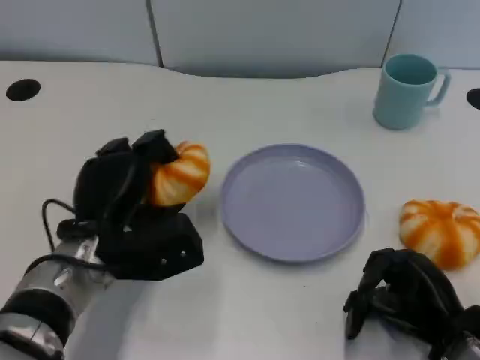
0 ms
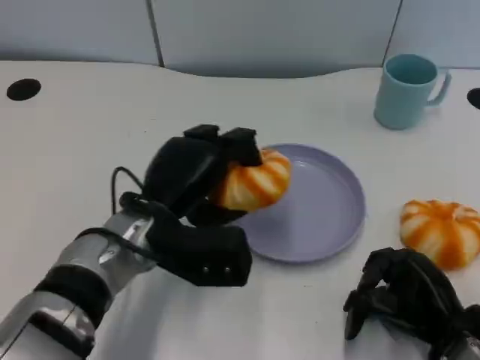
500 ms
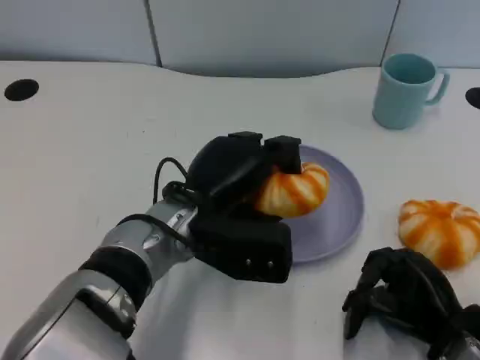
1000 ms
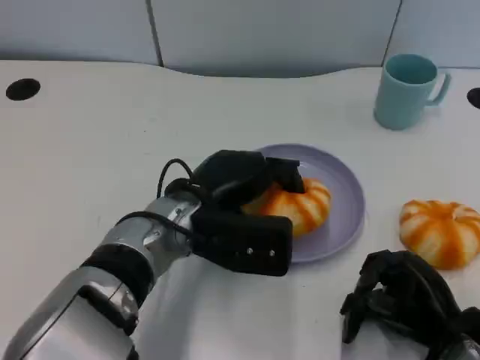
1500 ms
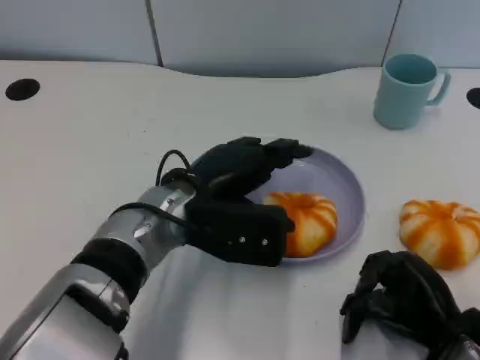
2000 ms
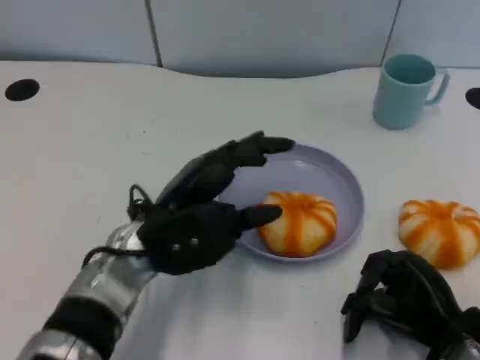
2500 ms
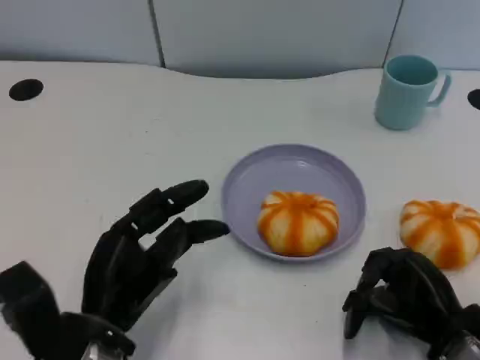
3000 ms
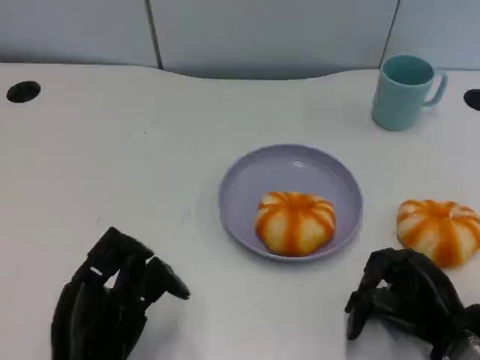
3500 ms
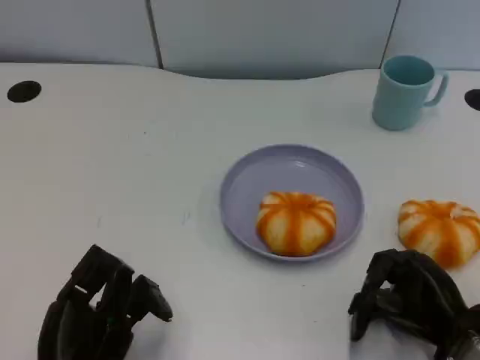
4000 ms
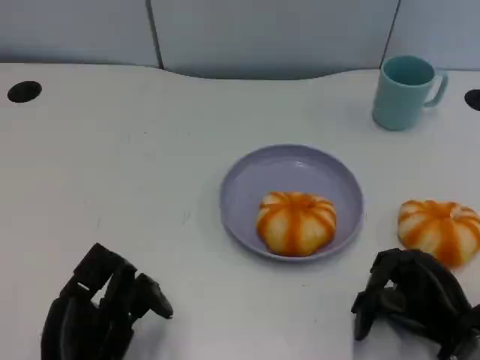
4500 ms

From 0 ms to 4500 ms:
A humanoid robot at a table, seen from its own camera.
Task of the whole recording: Grasp the bread from the table and place it into the plate.
From 0 ms to 2000 ms: The left hand moves to the right, roughly 10 cm.
From 2000 ms to 4500 ms: The left hand is displaced backward, to the left and downward by some 20 cm.

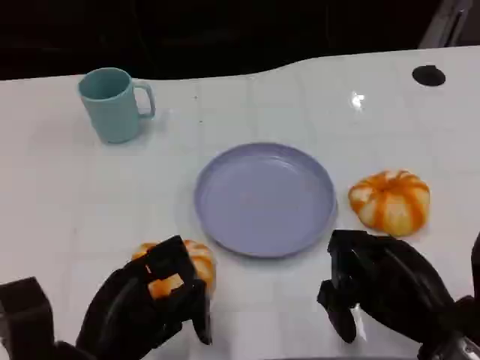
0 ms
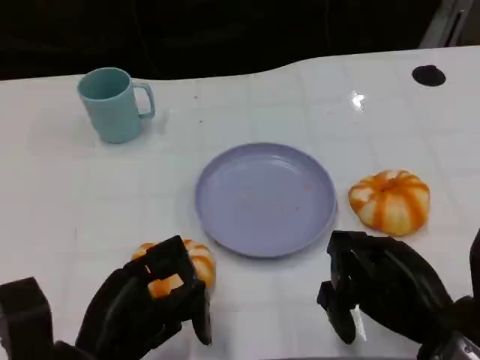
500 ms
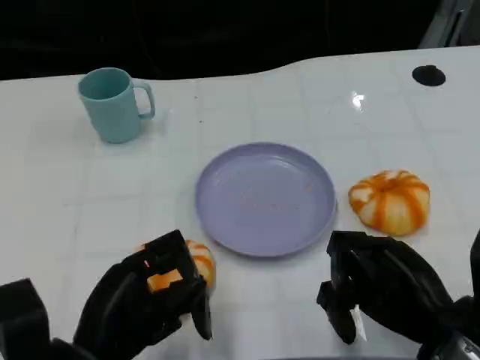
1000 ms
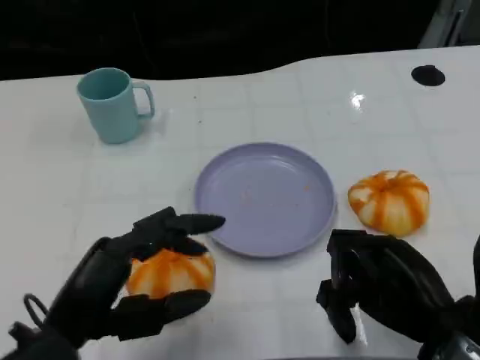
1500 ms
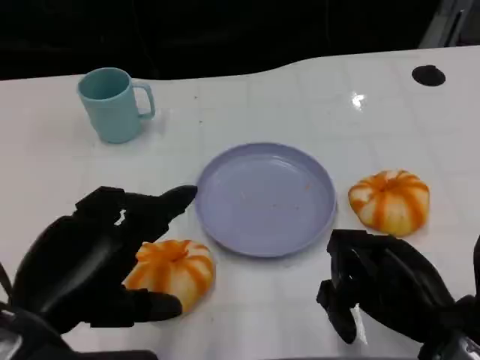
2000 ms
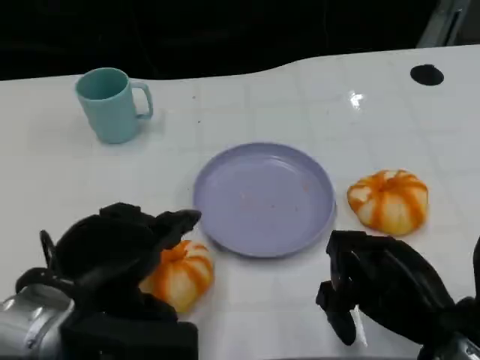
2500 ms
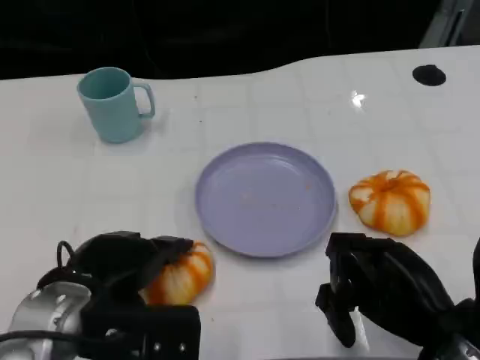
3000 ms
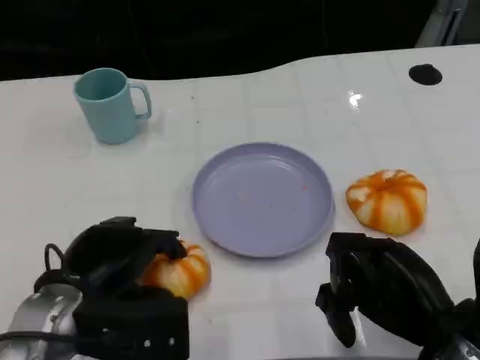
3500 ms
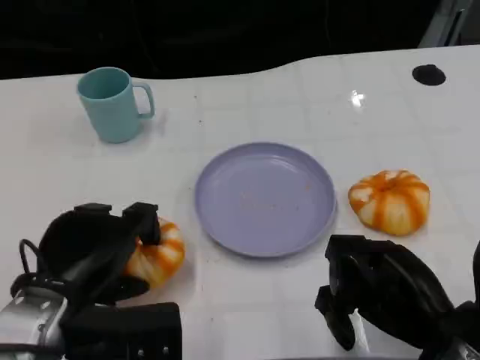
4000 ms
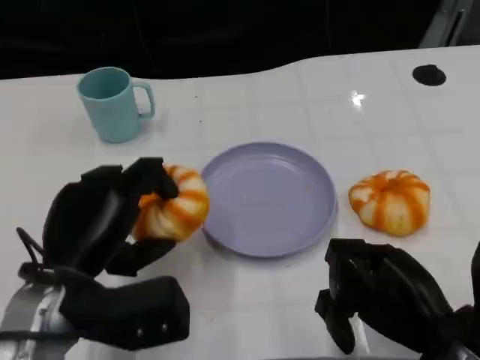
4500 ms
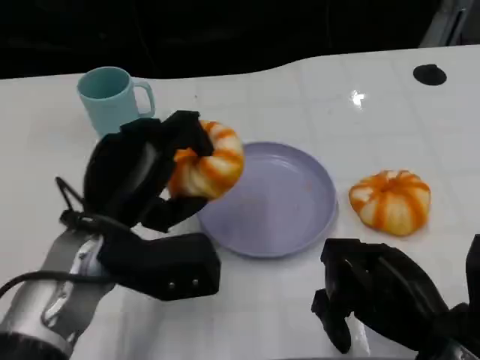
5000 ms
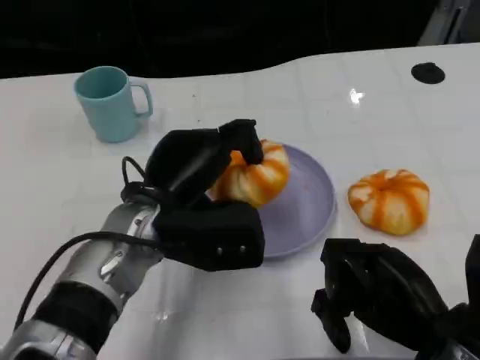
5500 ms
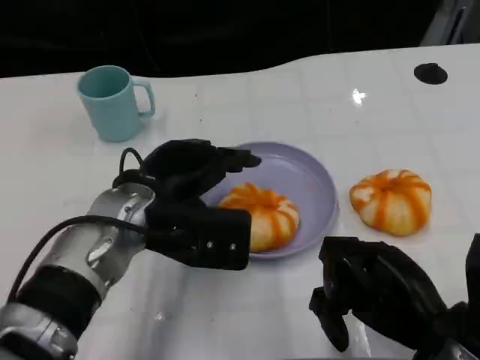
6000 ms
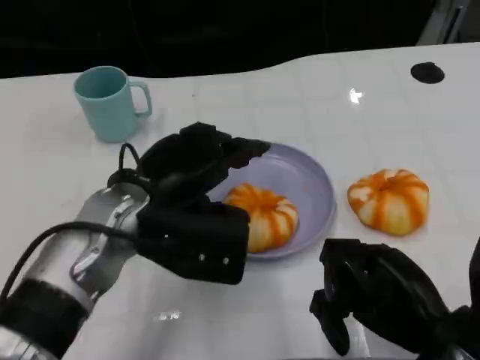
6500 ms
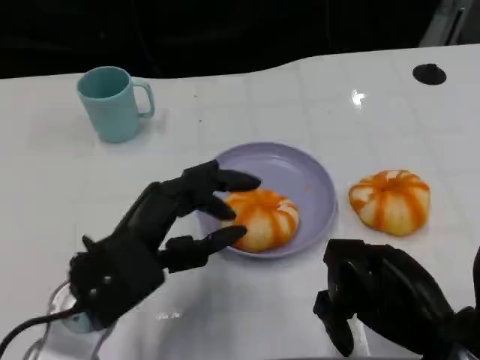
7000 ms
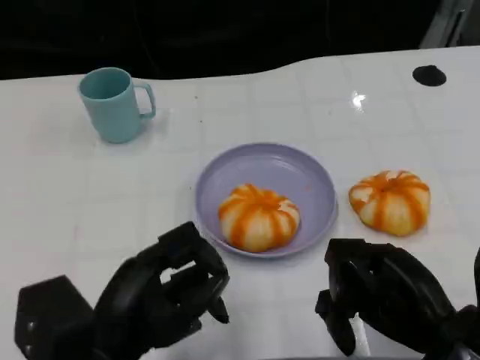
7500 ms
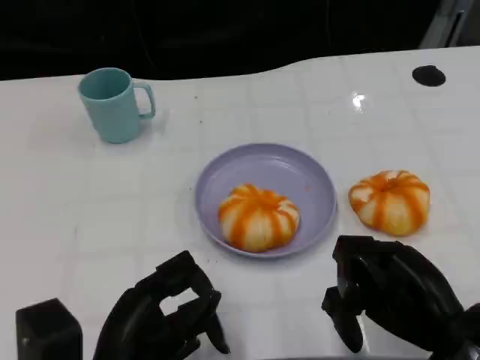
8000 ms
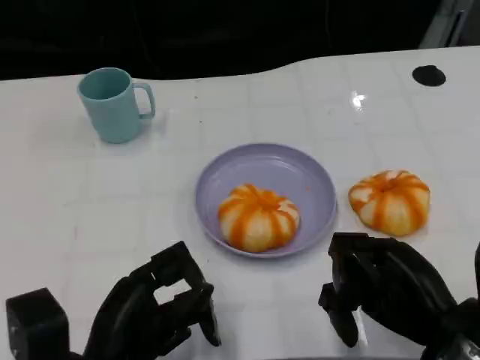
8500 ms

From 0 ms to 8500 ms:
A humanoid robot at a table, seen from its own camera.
Task of the whole recording: Grasp the bread from the table and place it into the plate.
From 0 ms to 2000 ms: The left hand is displaced upward by some 10 cm.
From 2000 ms to 4000 ms: The left hand is displaced downward and forward by approximately 10 cm.
From 4000 ms to 6500 ms: The left hand travels to the right and forward by roughly 10 cm.
From 6500 ms to 8500 ms: The left hand moves backward and downward, approximately 15 cm.

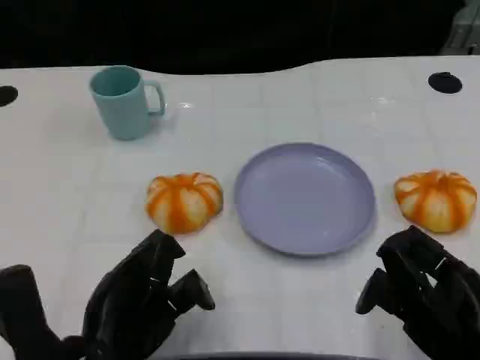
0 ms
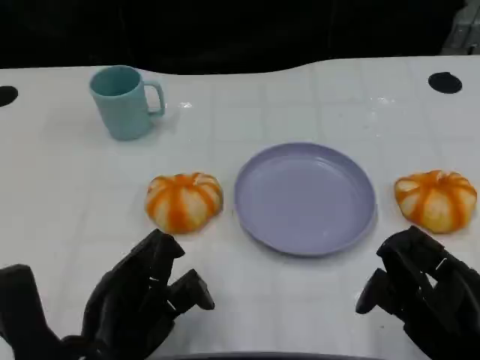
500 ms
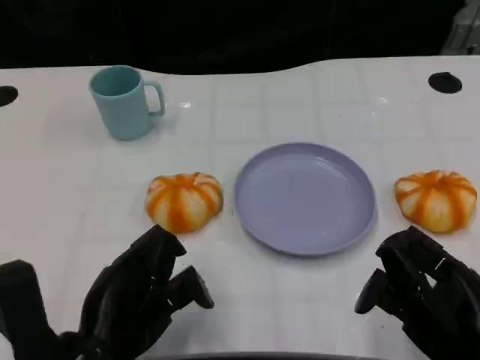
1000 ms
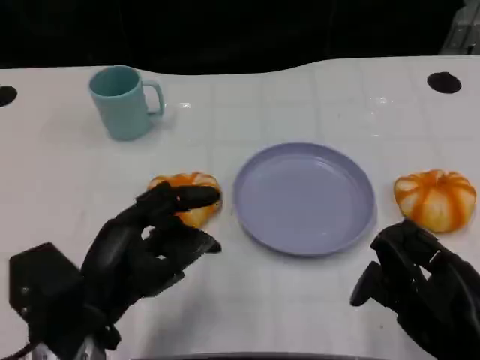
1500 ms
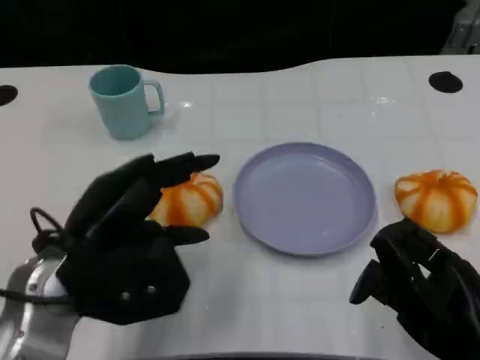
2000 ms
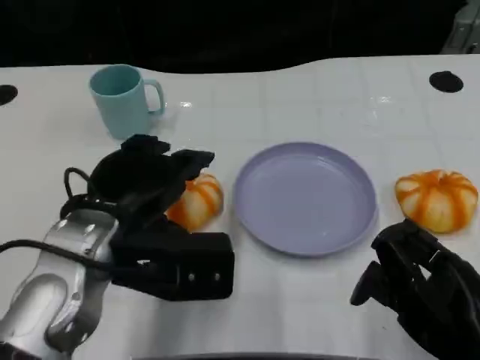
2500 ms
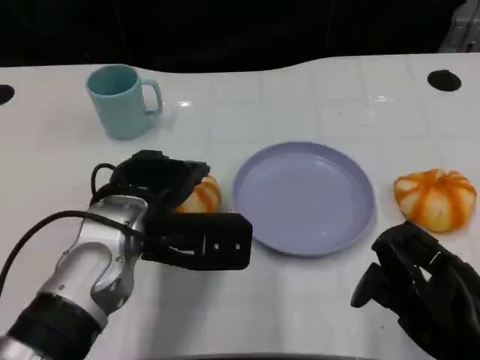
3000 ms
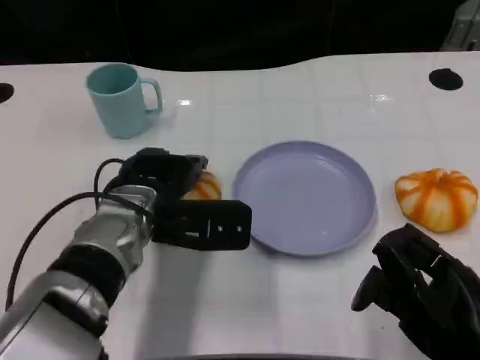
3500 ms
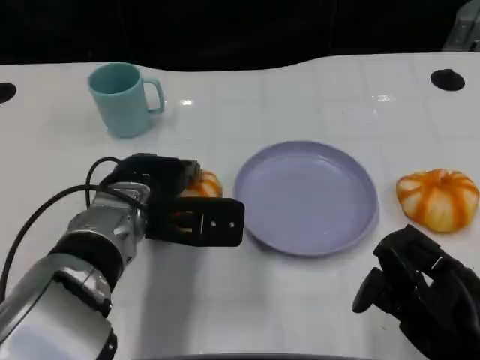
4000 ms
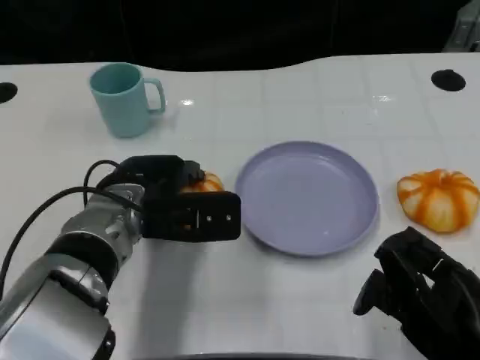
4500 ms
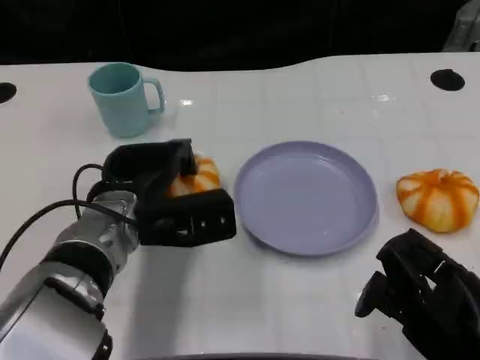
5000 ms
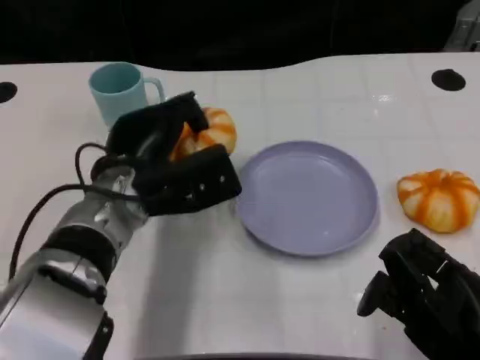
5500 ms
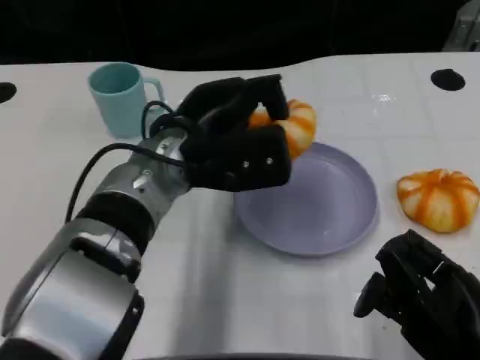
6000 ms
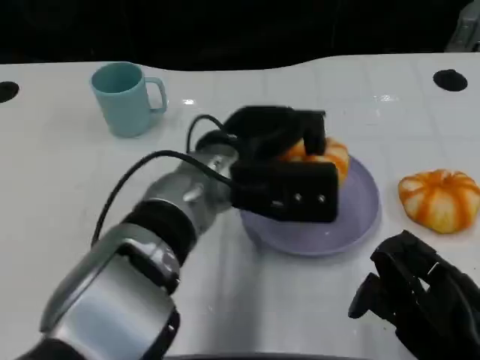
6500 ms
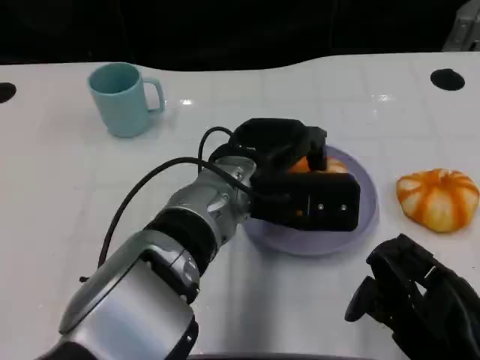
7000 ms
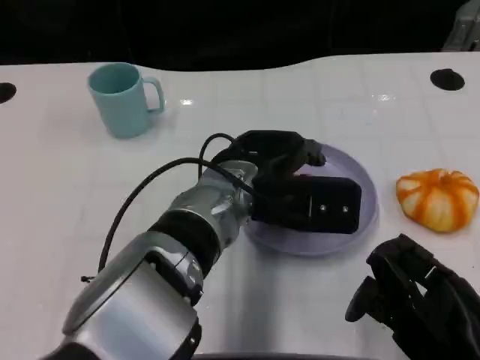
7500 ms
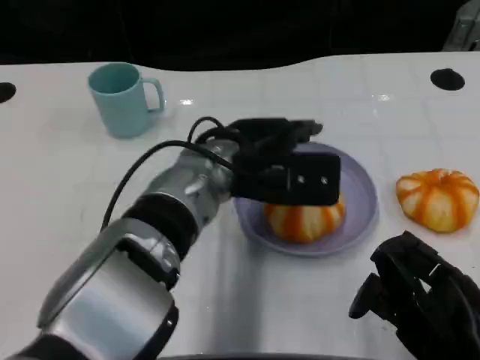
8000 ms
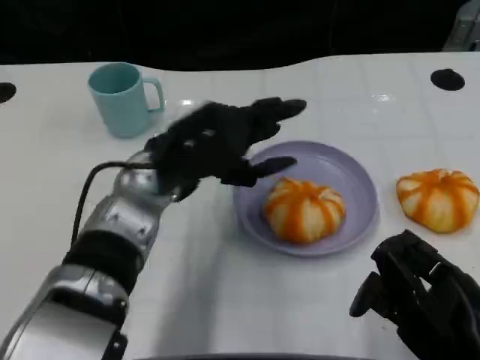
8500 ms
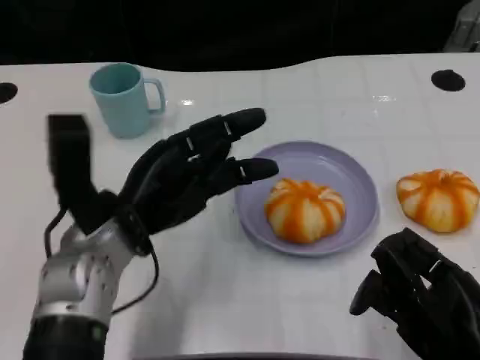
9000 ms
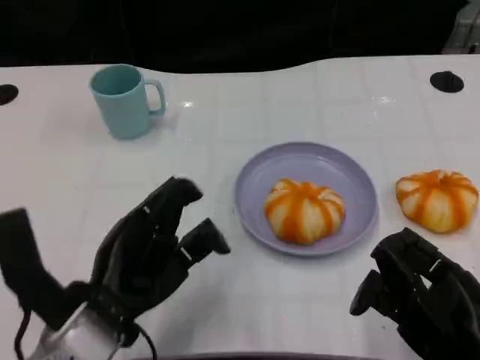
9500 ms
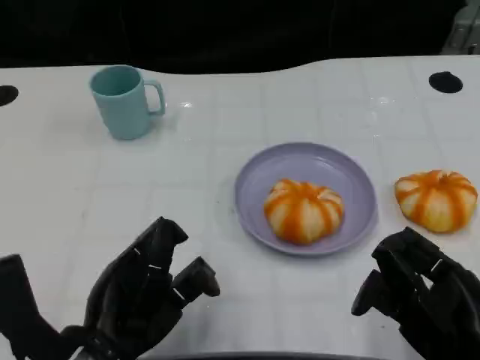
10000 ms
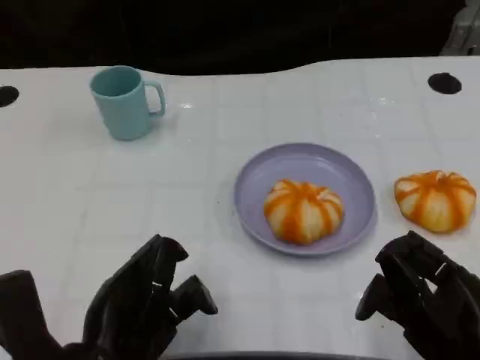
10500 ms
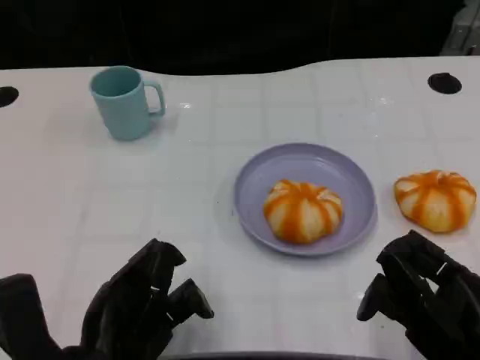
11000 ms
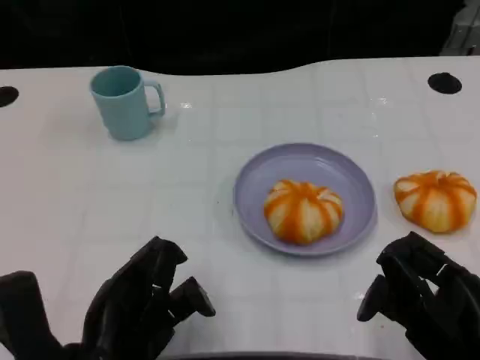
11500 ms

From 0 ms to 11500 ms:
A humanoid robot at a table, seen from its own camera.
Task of the whole recording: Grasp the bread from the table and place it into the plate.
From 0 ms to 2000 ms: The left hand heads upward and forward, covering some 10 cm.
From 2000 ms to 4000 ms: The left hand heads forward and to the right, covering about 10 cm.
From 4000 ms to 6000 ms: The left hand is displaced upward and to the right by about 10 cm.
From 6000 ms to 7500 ms: The left hand goes roughly 5 cm to the right.
From 7500 ms to 9500 ms: The left hand moves to the left and backward, roughly 20 cm.
From 9500 ms to 11500 ms: There are only small adjustments of the hands.

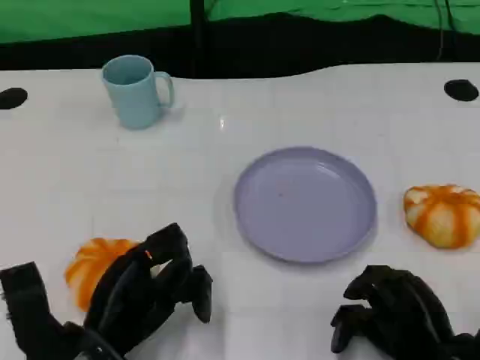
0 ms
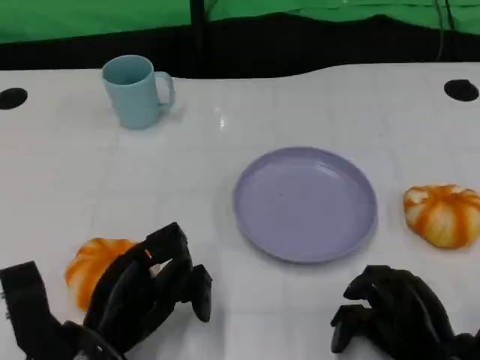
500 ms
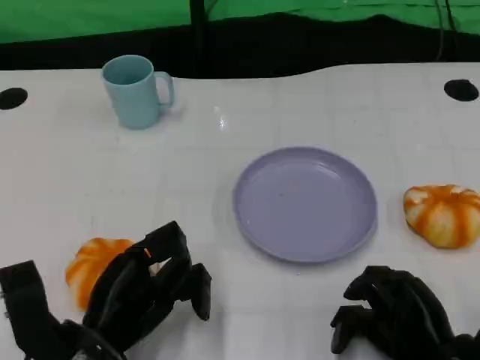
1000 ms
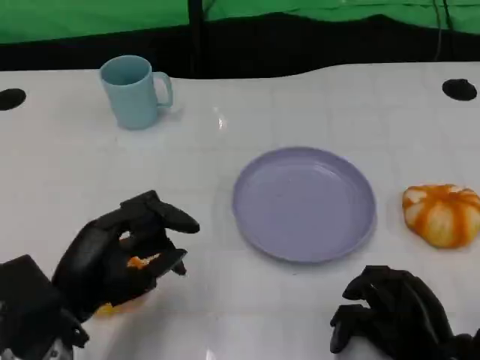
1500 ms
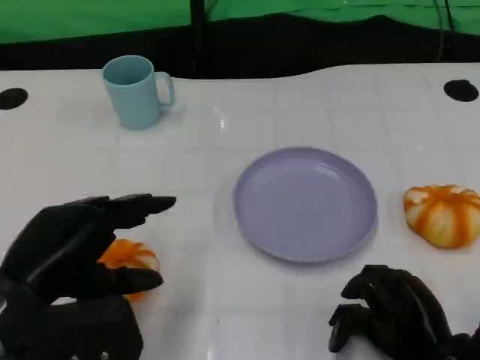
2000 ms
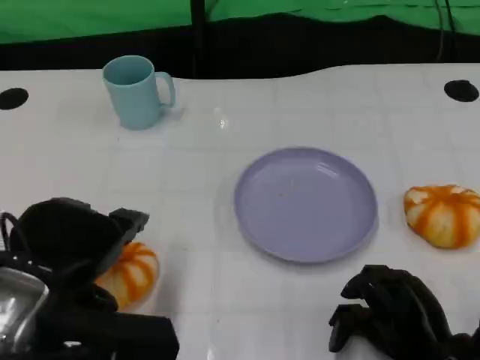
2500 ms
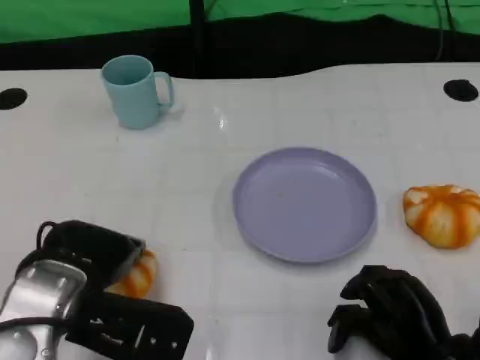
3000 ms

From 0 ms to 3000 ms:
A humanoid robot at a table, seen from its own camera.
Task of the whole recording: Grasp the bread from the table and place it into the plate.
From 0 ms to 1500 ms: The left hand moves approximately 5 cm.
